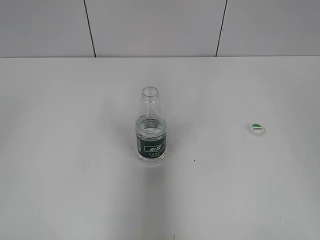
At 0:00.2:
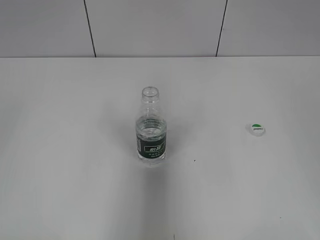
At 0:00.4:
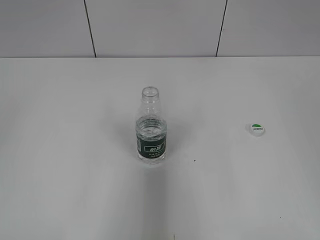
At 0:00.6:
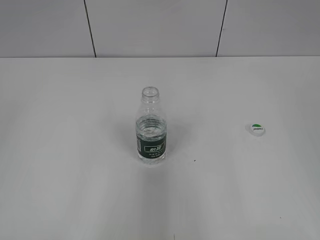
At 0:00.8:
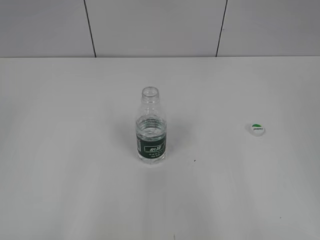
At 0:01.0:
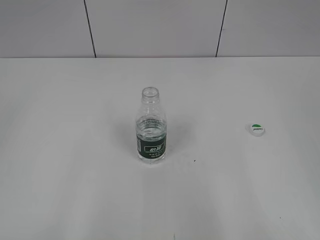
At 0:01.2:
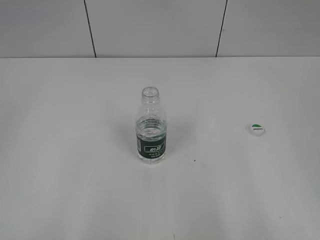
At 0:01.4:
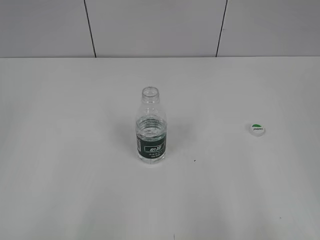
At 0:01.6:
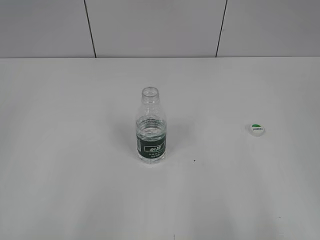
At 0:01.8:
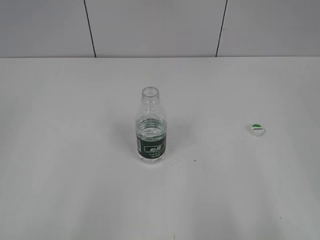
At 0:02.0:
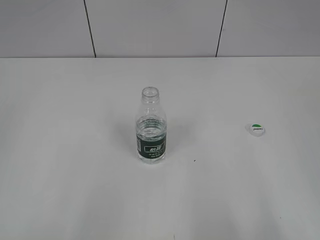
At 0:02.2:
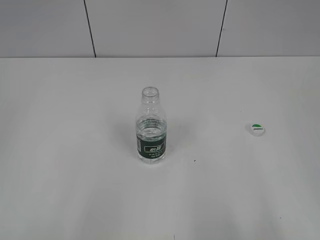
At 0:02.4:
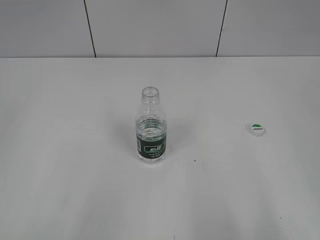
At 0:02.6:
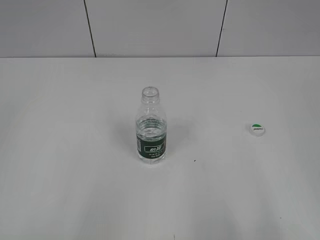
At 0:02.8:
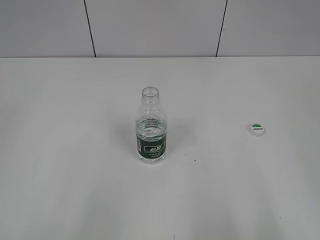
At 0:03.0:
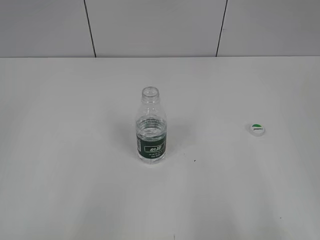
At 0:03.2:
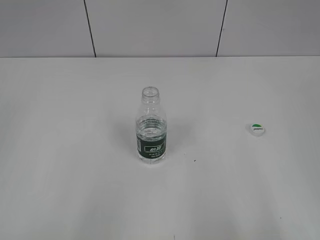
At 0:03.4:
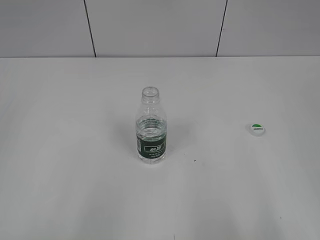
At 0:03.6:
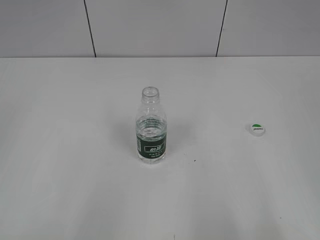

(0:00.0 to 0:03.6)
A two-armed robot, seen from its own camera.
0:00.0 - 0:01.8: The left gripper heads downward and backward, covering roughly 10 cm, while the right gripper moves backward and downward, approximately 15 cm.
0:01.8 - 0:03.6: Neither gripper changes place.
